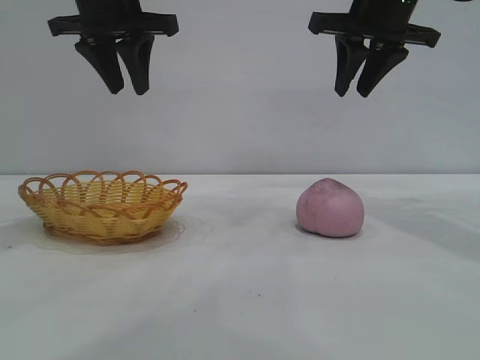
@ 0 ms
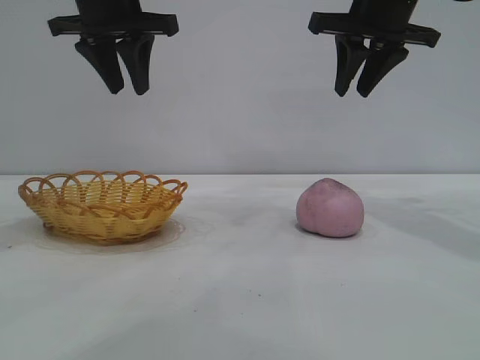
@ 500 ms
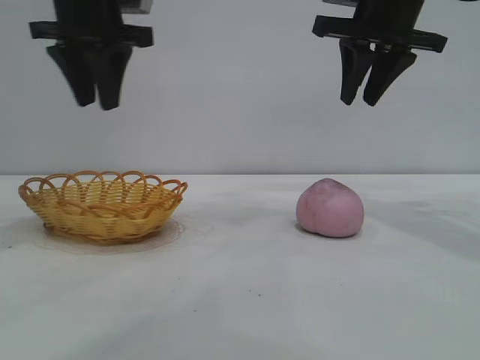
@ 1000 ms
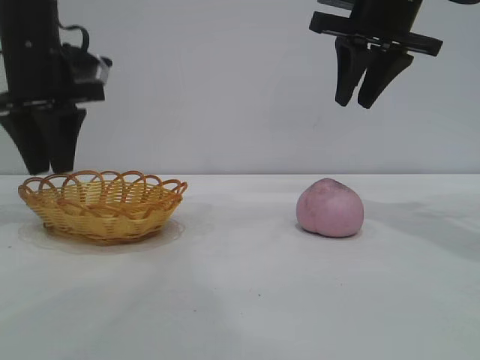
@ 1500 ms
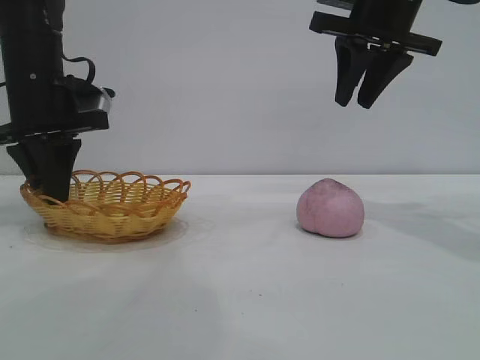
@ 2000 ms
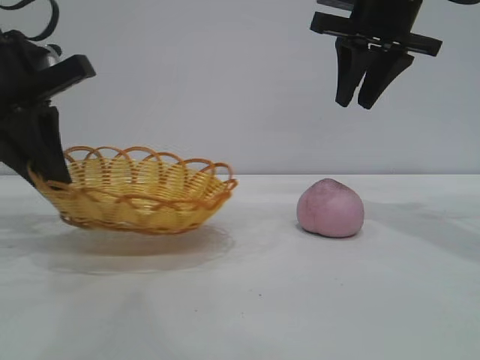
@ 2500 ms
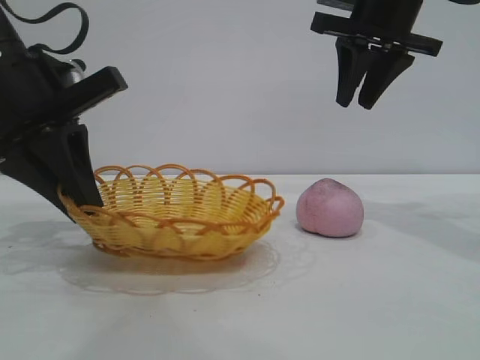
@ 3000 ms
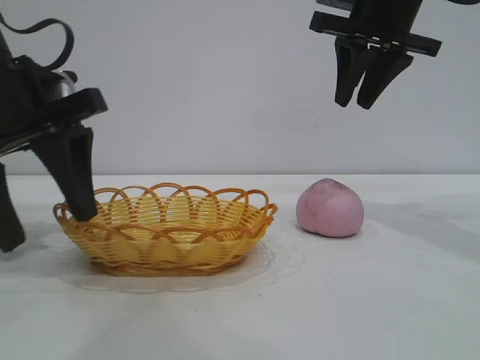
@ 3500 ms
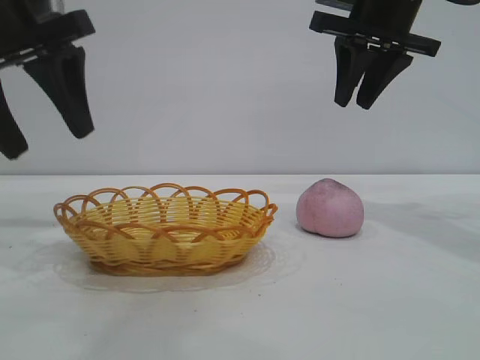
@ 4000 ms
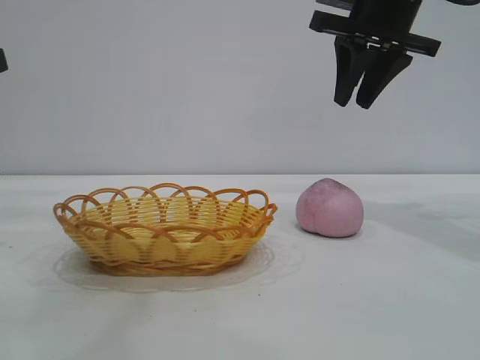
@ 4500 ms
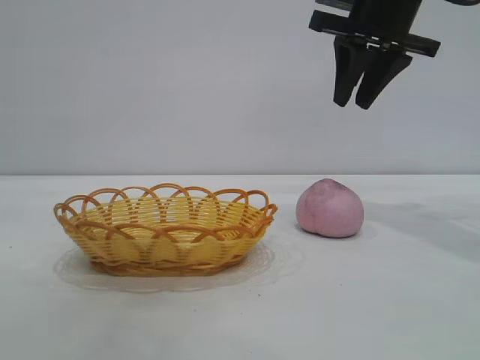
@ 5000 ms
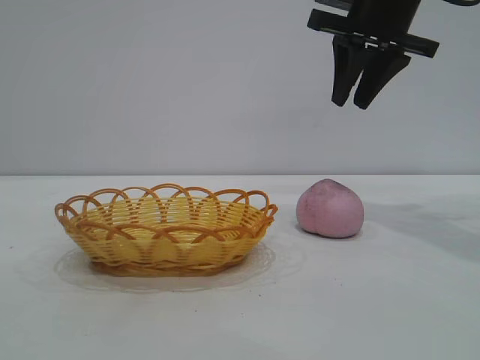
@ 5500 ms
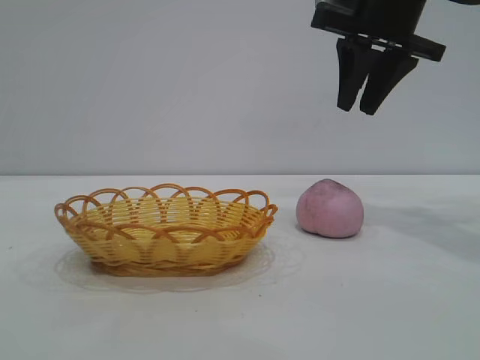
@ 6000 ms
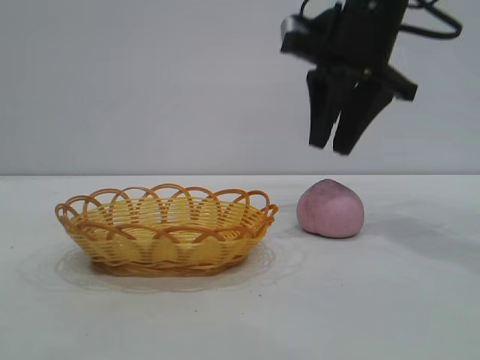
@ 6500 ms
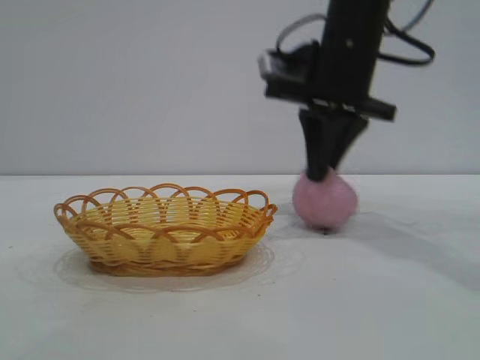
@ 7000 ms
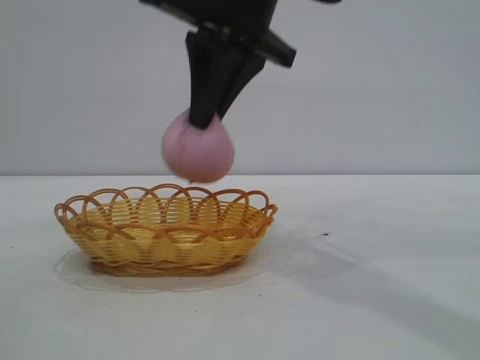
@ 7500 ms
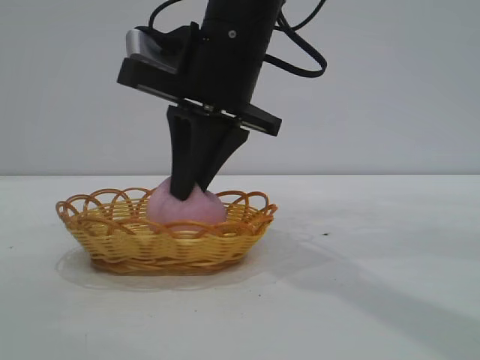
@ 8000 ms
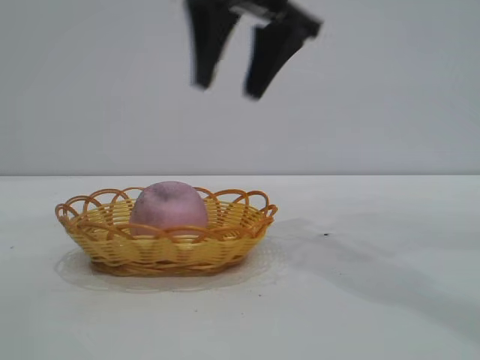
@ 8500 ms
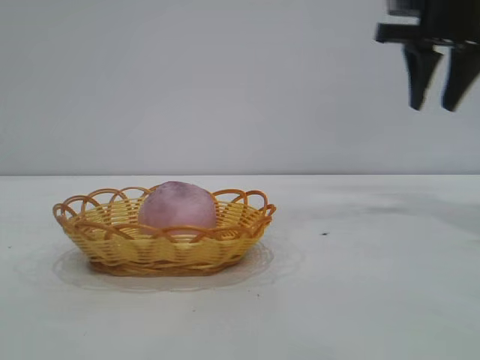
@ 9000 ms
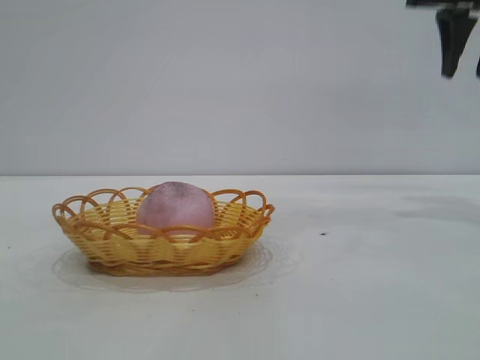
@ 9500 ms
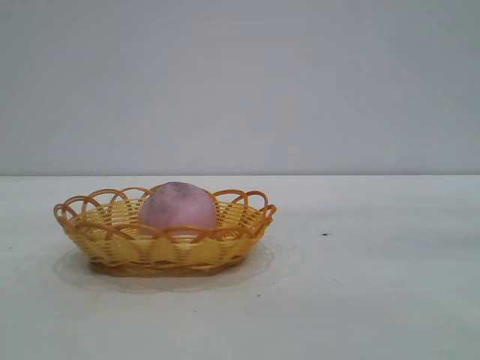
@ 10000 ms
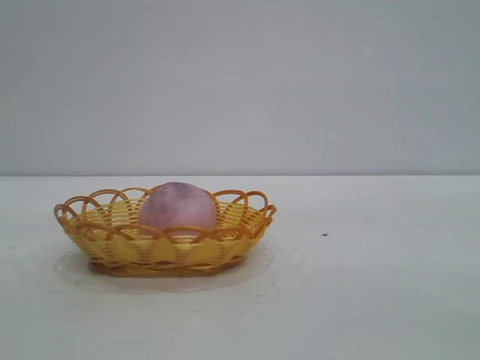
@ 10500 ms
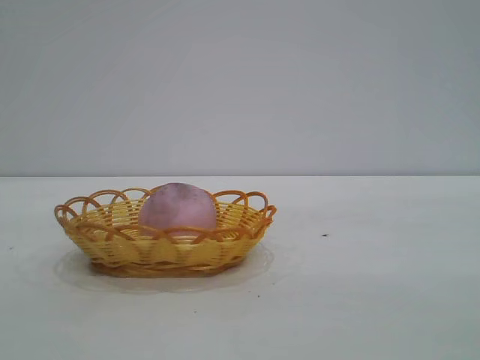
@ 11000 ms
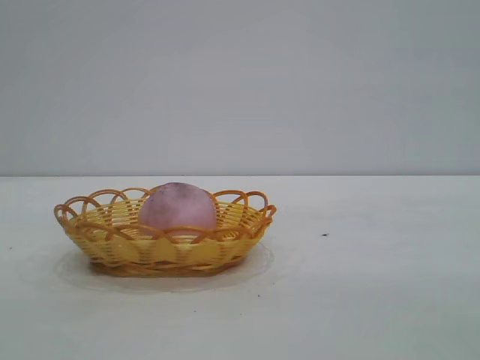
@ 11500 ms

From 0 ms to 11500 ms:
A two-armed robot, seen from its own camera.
Task of the whole recording: pick up the peach and put it into the basket.
Step, from 0 ms to 3500 ms: Move the basket to the center of view.
Step, from 4500 ms to 7000 ms: Pick up the peach.
Step, from 7500 ms to 8000 ms: place the peach into the basket.

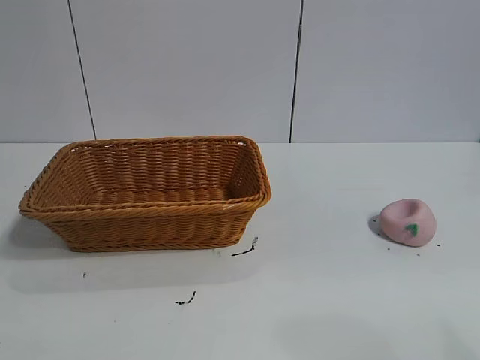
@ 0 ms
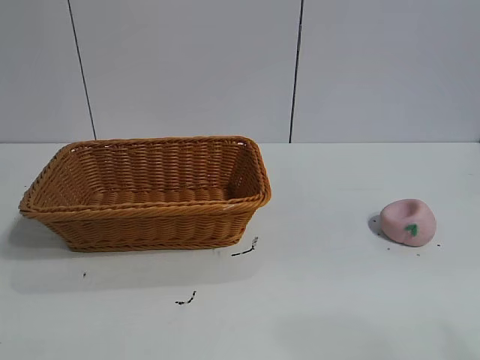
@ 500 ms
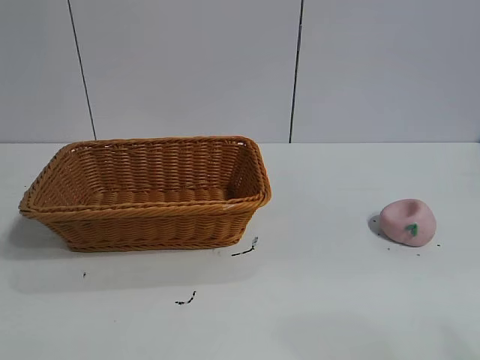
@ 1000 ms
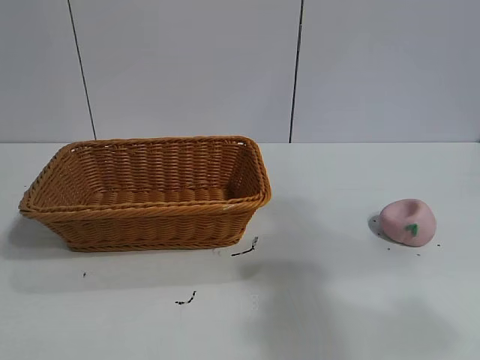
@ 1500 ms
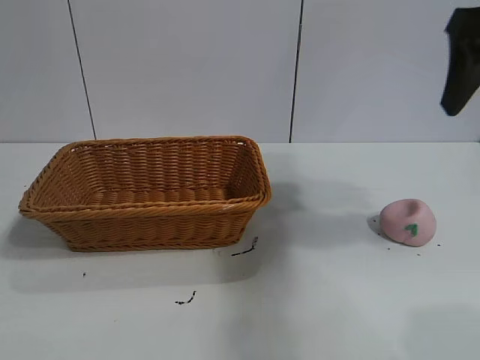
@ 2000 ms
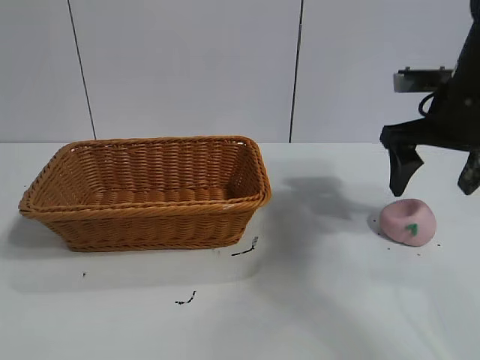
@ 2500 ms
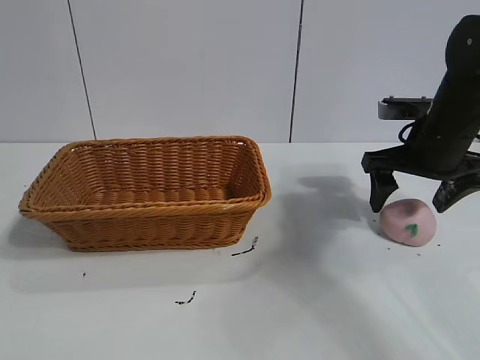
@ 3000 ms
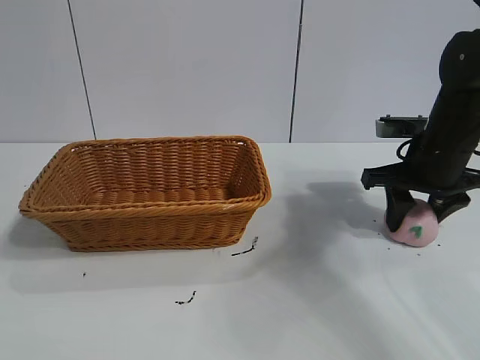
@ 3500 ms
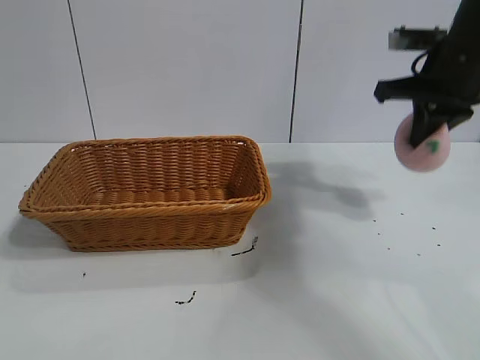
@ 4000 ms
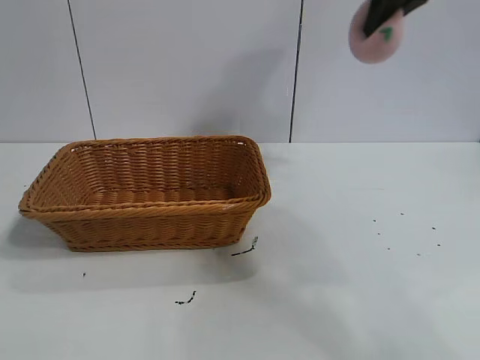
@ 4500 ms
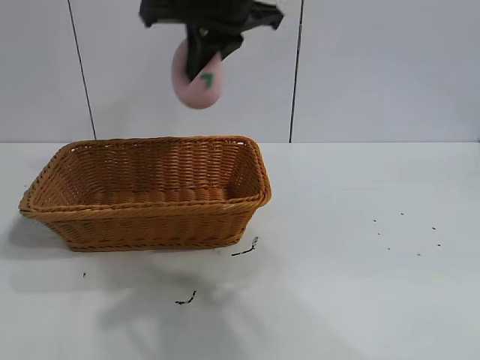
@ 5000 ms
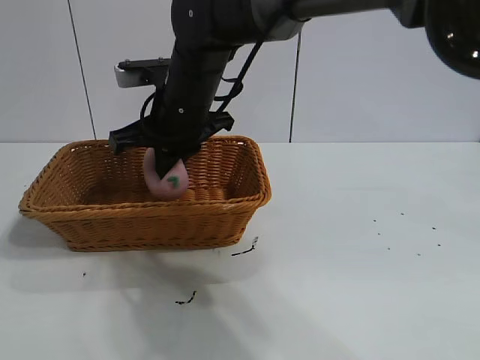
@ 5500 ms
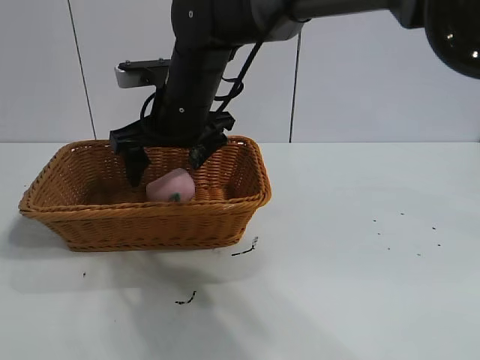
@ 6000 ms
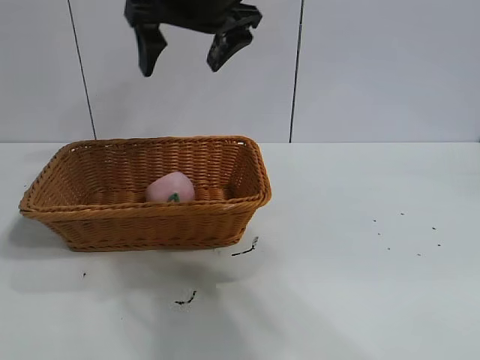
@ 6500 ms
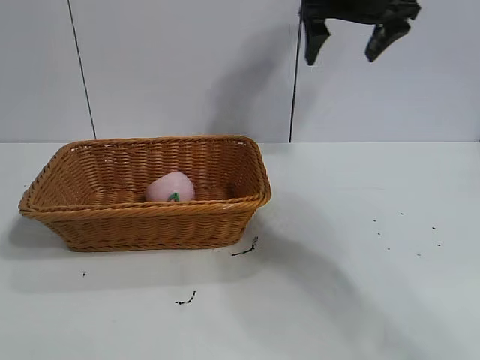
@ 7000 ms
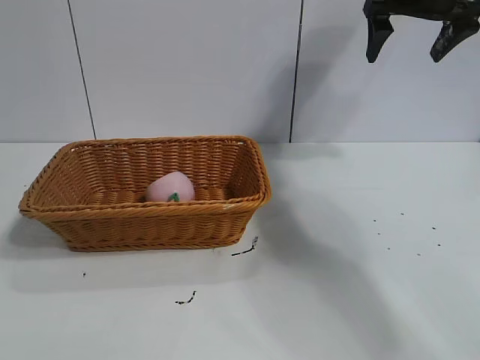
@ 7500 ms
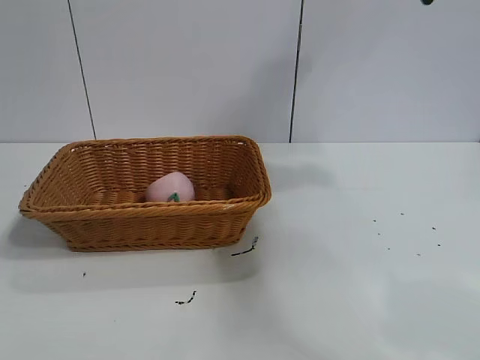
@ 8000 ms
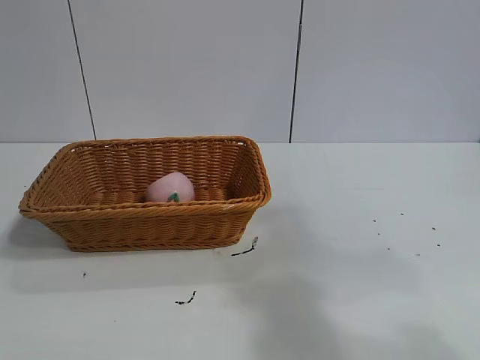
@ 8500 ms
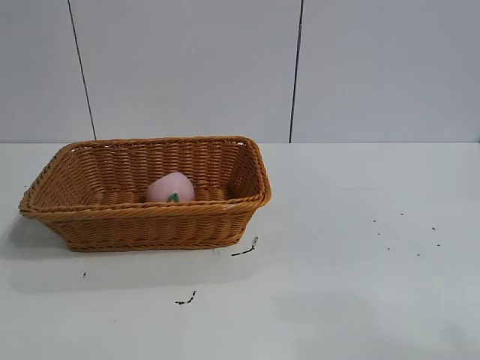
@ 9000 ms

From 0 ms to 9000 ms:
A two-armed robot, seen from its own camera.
Task of the whole recording: pick up the peach and put it into the basket.
Step, from 1500 ms to 3500 ms: Grasp the peach with right gripper.
Step, from 4000 ms to 6000 ms: Place the peach in the basket with right gripper.
